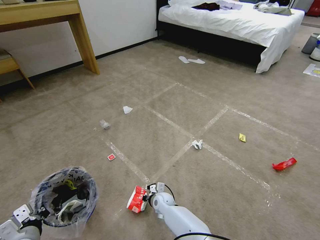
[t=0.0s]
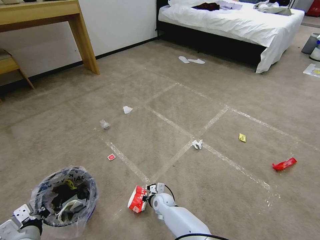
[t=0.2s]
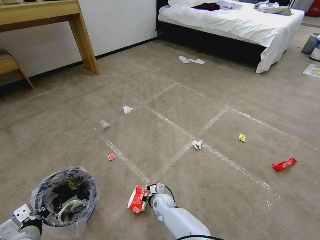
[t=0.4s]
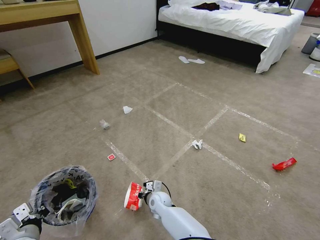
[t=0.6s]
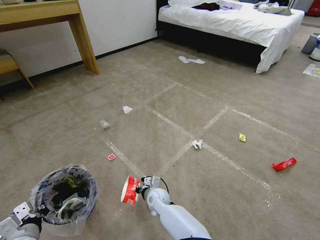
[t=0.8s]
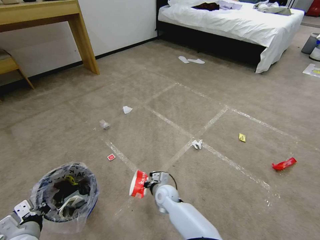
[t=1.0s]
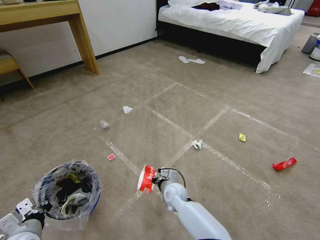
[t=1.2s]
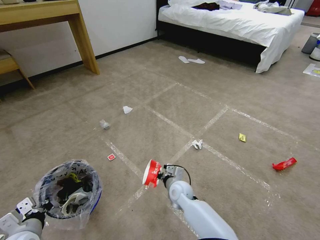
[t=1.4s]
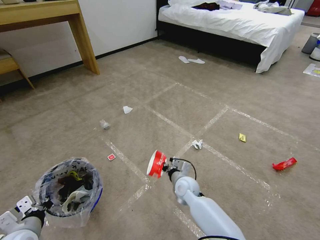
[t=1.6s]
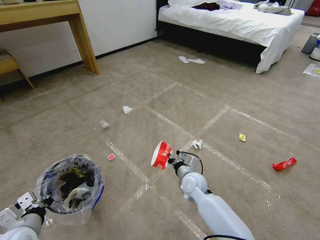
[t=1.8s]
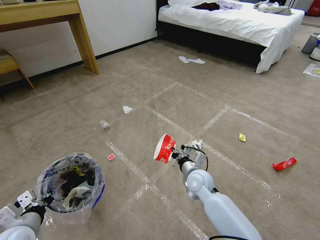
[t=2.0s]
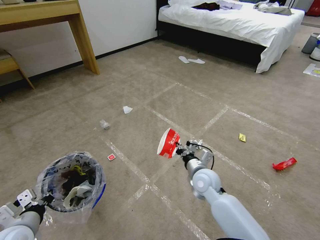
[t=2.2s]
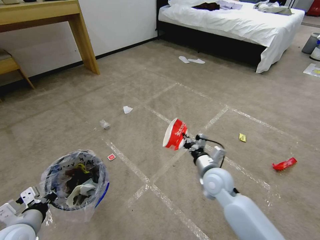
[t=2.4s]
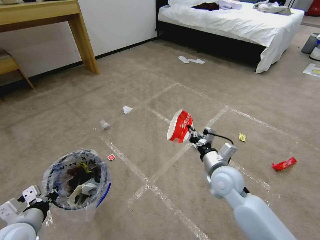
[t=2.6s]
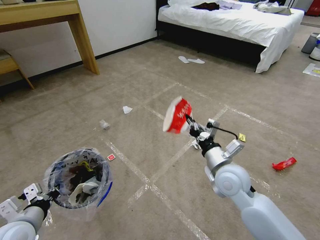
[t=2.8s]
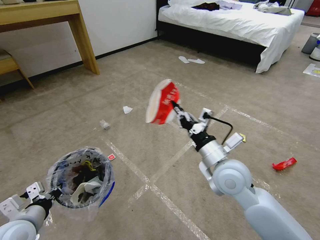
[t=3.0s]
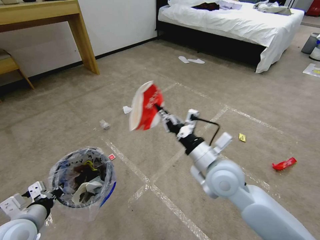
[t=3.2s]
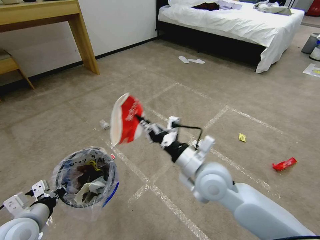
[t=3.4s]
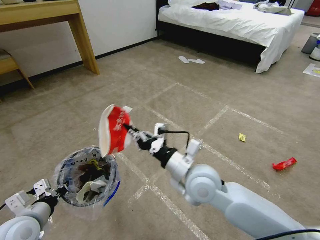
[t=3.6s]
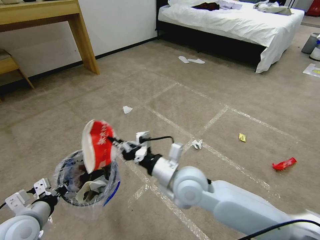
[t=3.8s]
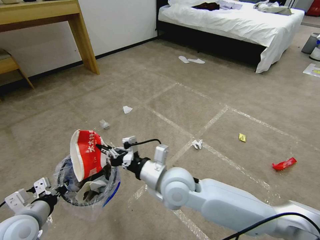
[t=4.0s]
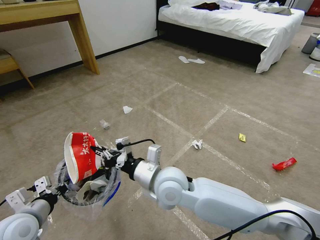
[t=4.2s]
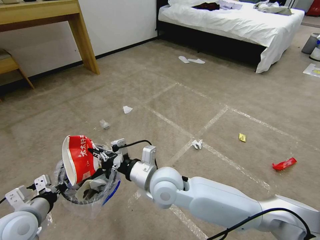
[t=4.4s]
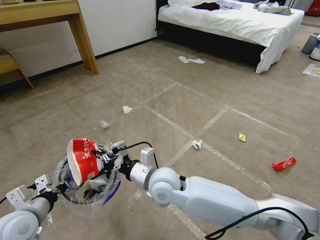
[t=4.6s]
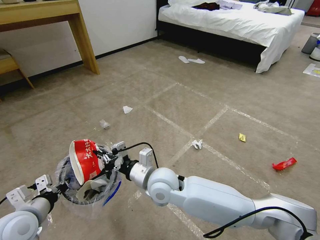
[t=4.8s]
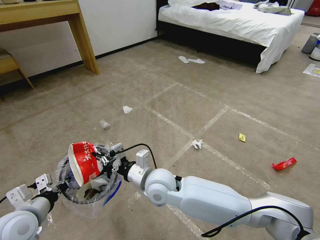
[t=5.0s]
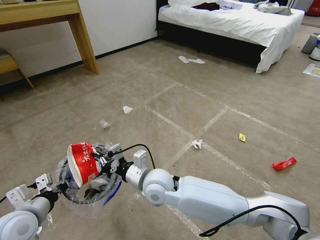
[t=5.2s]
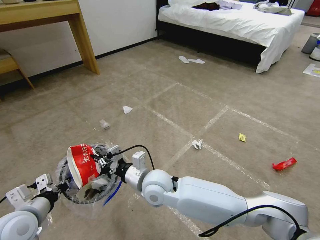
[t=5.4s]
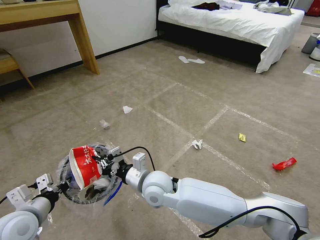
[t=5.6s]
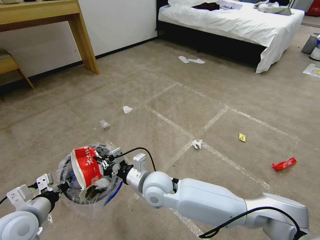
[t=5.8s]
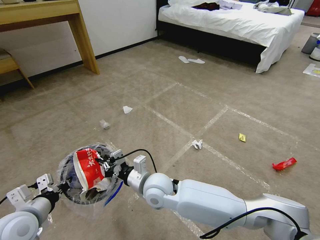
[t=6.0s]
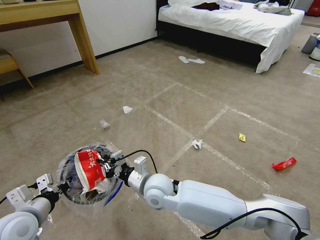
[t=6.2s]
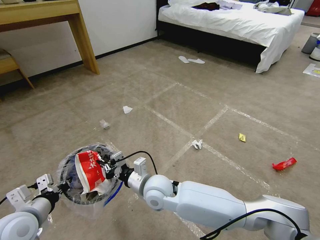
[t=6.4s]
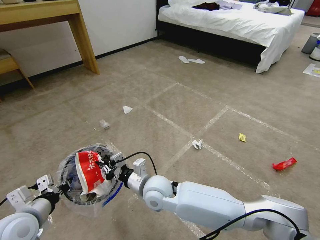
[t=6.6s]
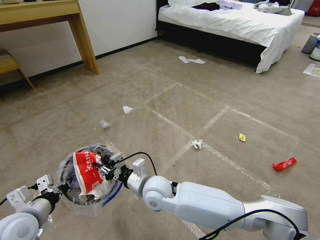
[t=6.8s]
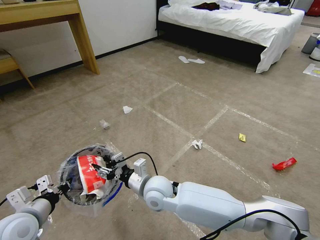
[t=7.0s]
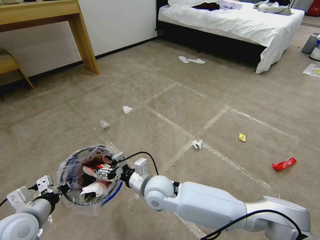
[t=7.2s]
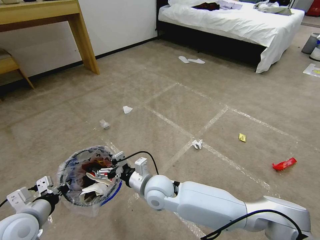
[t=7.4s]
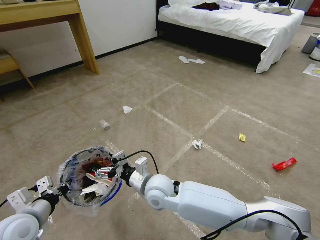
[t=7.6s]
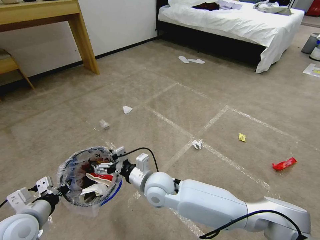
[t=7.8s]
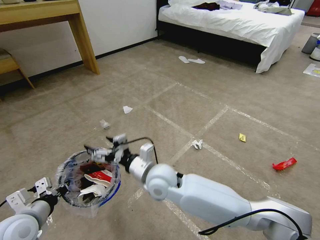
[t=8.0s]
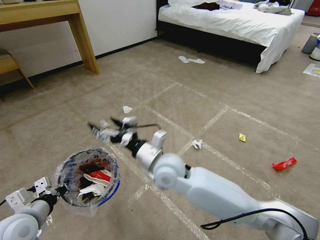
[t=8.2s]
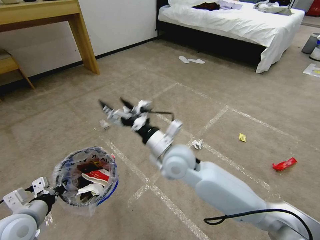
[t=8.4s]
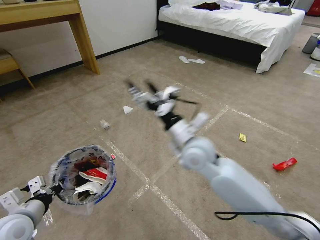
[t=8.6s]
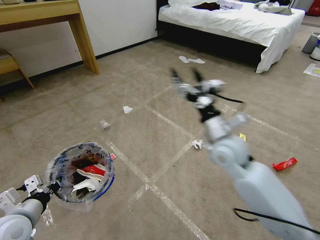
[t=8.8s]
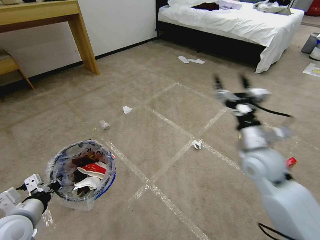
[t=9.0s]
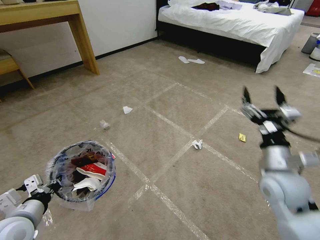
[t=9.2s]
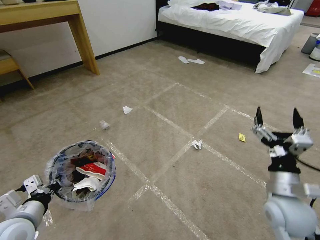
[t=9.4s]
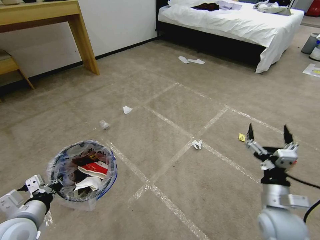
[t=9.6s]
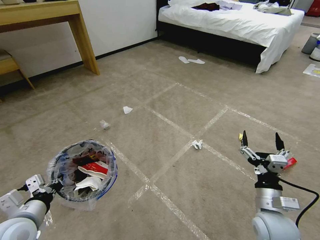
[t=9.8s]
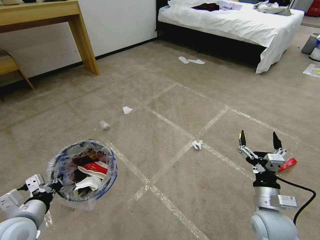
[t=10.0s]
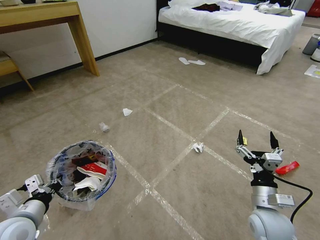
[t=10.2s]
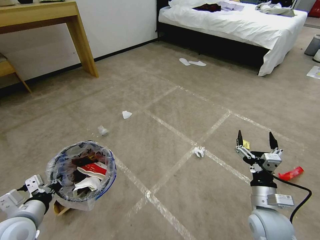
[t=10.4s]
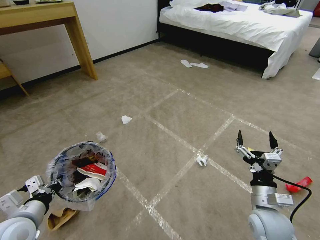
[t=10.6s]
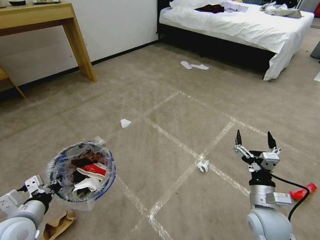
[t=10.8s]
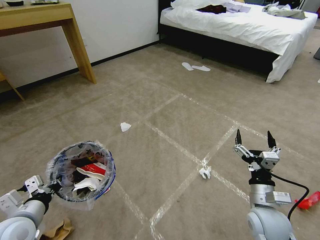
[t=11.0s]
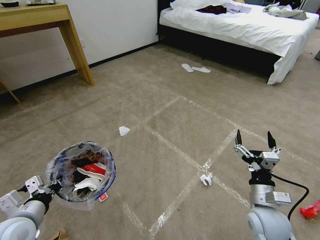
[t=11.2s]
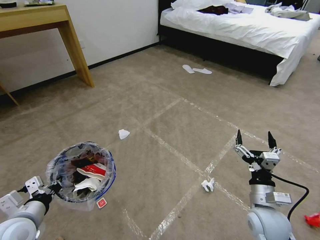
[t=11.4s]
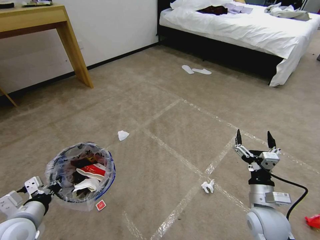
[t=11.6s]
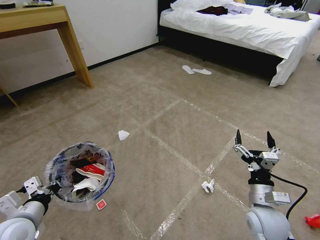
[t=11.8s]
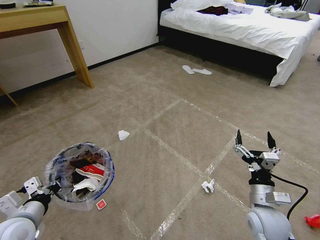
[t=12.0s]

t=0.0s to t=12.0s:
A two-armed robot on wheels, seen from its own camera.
Task of the whole recording: Pick up the trash bin and place the garbage on the floor into it.
t=0.0s to t=1.6s: The right gripper moves upward and to the right, about 15 cm.
t=1.6s to t=3.0s: The left gripper shifts by roughly 5 cm, while the right gripper goes roughly 25 cm upward.
t=3.0s to t=4.4s: The right gripper moves to the left, some 15 cm.
t=4.4s to t=6.0s: The right gripper heads downward, covering approximately 5 cm.
t=6.0s to t=7.6s: The right gripper opens.
t=7.6s to t=9.0s: The right gripper goes about 30 cm to the right and upward.
t=9.0s to t=10.4s: The right gripper shifts approximately 15 cm downward and backward.

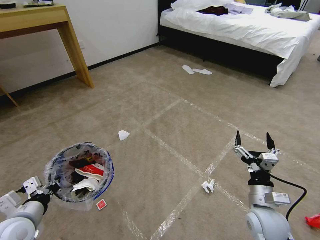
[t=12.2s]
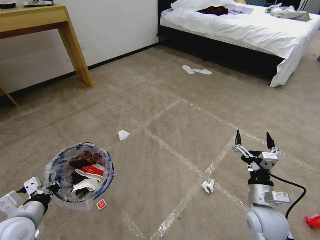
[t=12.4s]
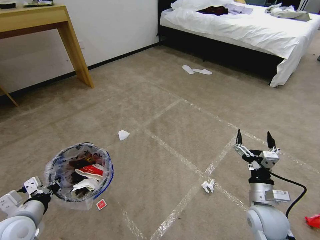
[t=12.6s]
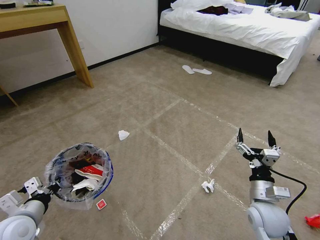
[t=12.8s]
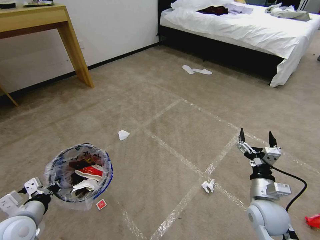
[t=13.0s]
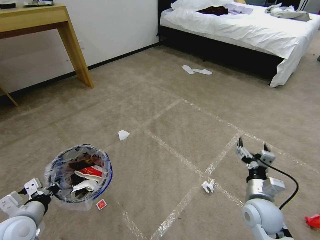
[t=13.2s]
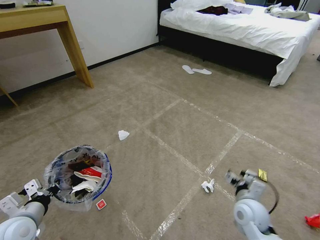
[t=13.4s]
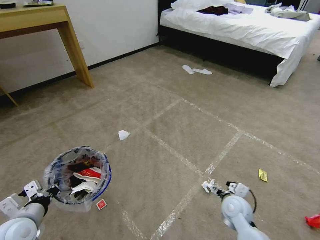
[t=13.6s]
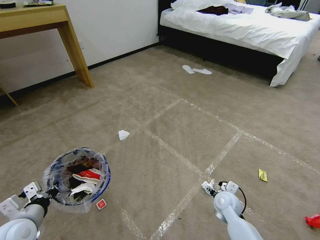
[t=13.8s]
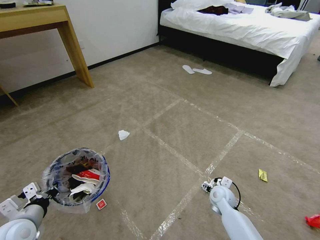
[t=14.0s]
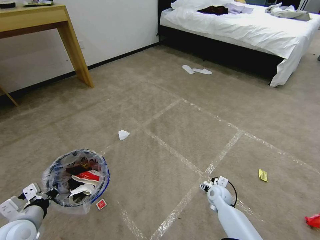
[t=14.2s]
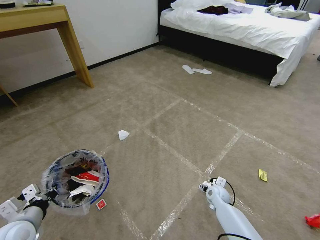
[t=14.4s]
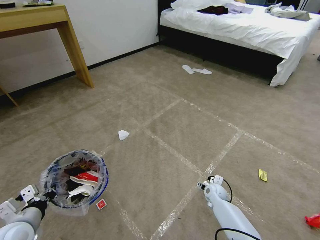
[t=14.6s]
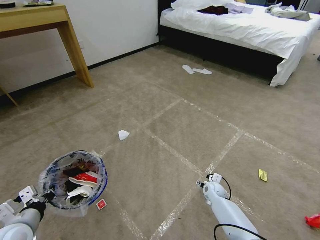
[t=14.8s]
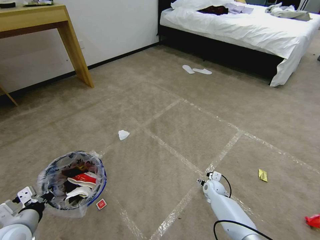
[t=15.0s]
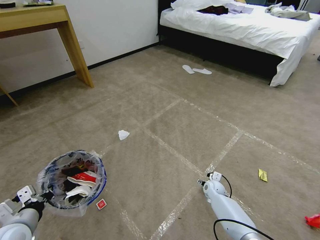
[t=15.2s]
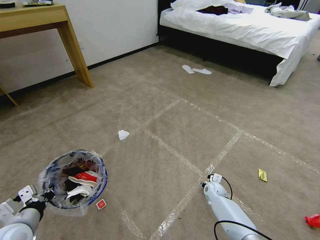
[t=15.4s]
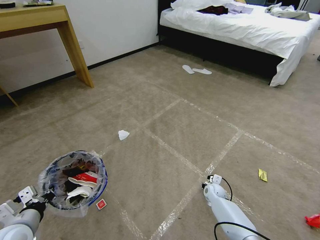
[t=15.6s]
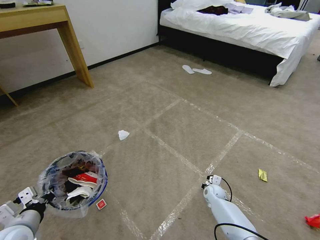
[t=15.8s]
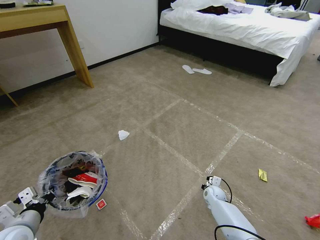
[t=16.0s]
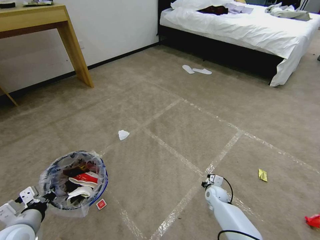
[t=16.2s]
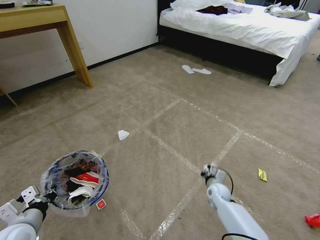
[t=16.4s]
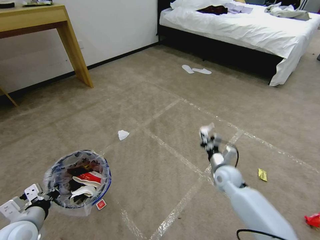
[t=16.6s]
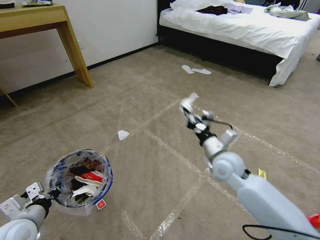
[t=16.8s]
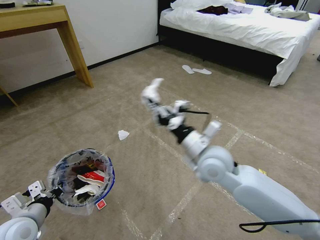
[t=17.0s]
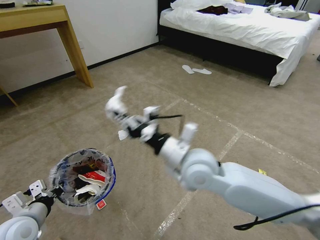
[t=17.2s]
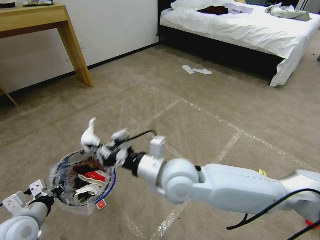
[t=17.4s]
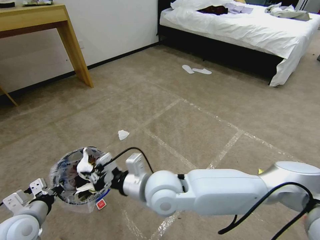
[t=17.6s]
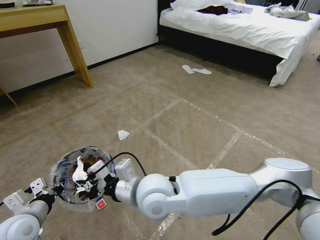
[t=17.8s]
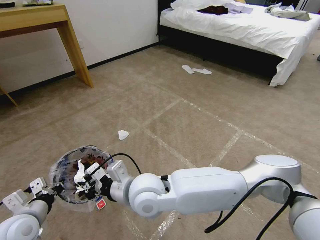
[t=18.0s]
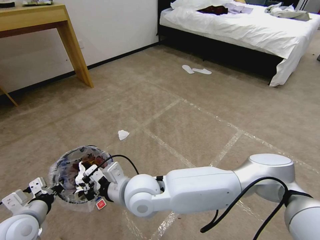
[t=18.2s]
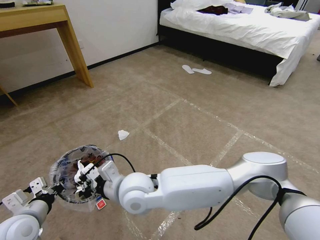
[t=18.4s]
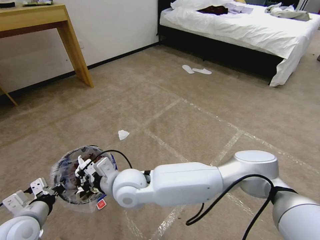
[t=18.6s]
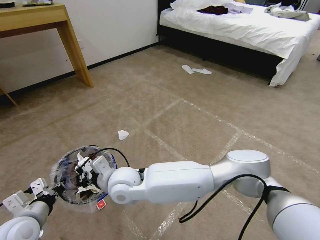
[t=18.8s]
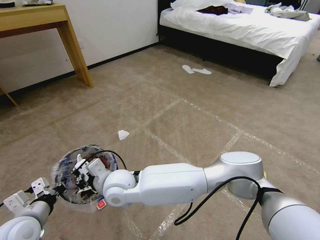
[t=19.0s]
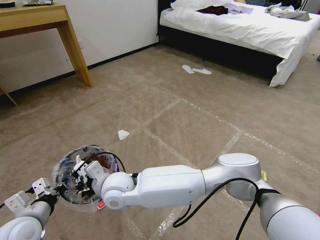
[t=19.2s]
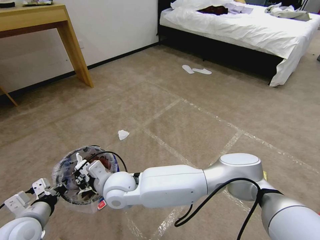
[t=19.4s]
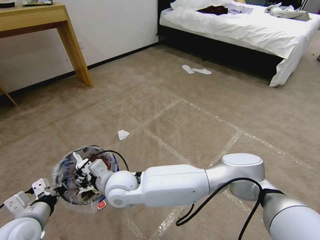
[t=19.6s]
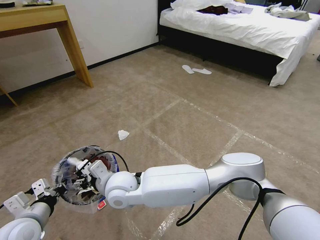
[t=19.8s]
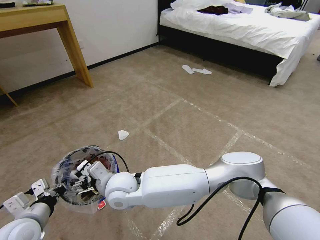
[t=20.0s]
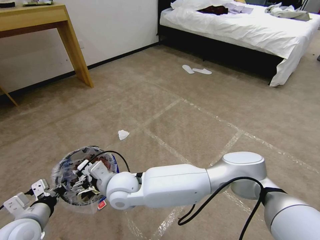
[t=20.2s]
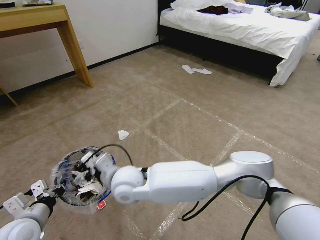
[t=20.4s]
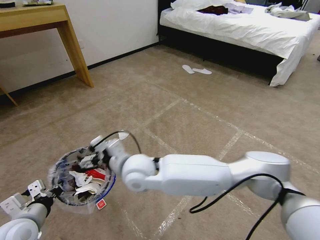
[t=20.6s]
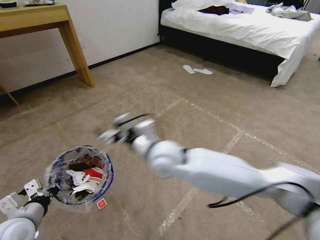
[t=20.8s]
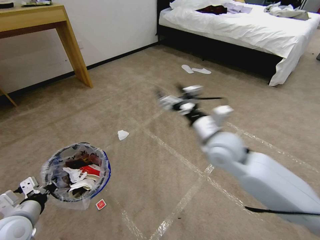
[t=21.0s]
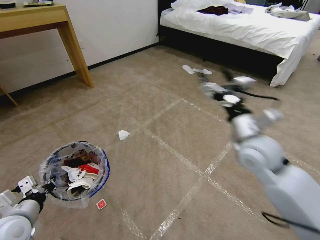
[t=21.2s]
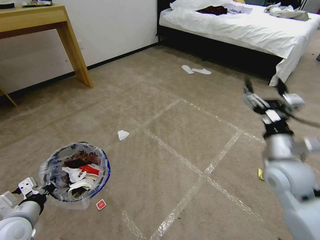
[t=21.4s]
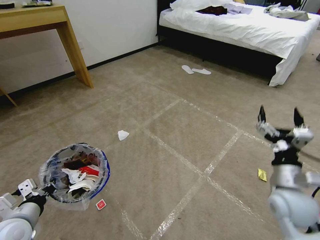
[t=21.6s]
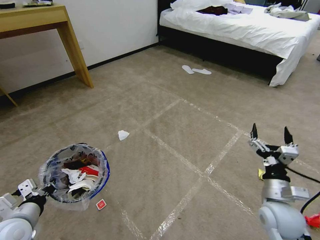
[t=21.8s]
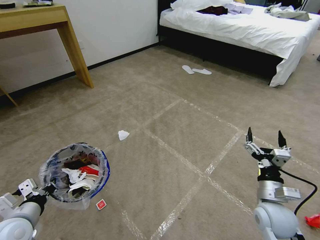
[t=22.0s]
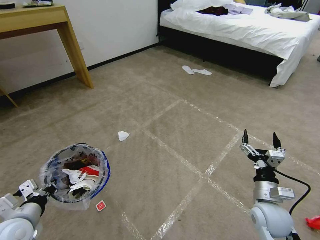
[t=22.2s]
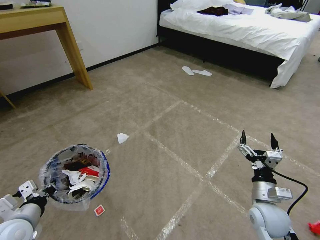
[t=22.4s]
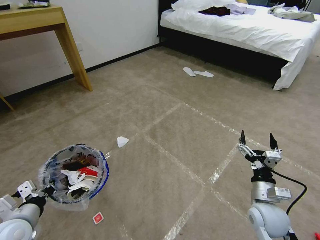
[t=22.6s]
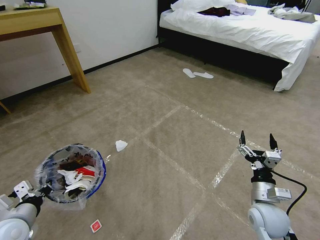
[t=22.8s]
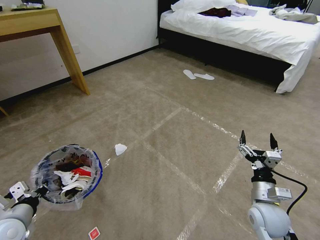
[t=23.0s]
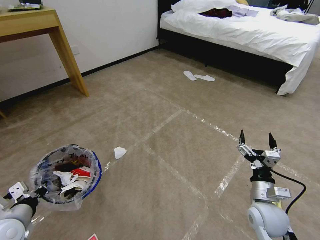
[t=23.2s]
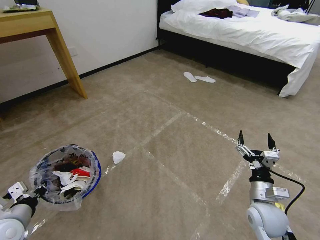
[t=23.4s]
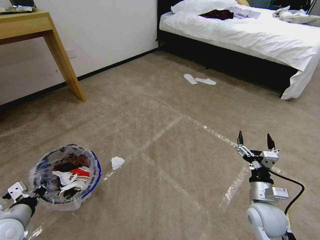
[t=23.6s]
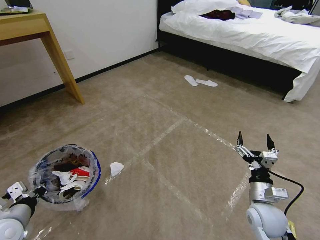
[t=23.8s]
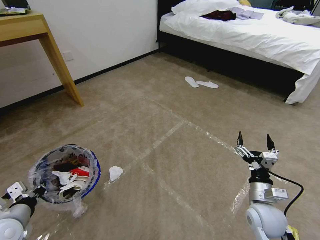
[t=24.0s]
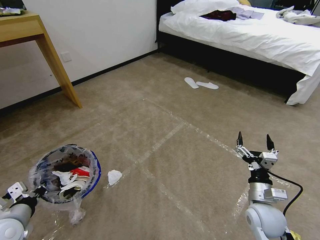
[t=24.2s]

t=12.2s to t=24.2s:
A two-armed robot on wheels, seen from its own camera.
Task of the whole recording: Pick up the trash bin and place the garbage on the floor into it.
t=12.2s to t=13.8s: The right gripper shifts some 15 cm downward and forward.
t=13.8s to t=15.2s: The right gripper heads downward and forward, covering about 15 cm.
t=15.2s to t=16.6s: The right gripper moves upward, roughly 15 cm, and closes its fingers.
t=16.6s to t=18.2s: The right gripper heads to the left and upward, covering roughly 35 cm.
t=18.2s to t=19.8s: The right gripper moves to the left, approximately 5 cm, and opens its fingers.
t=19.8s to t=21.2s: The right gripper heads to the right, covering approximately 35 cm.
t=21.2s to t=22.6s: The right gripper moves downward and backward, about 20 cm.
